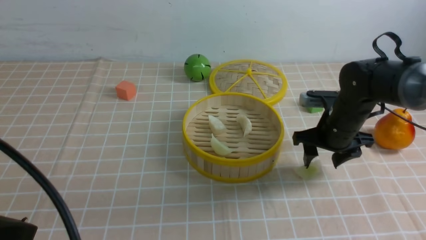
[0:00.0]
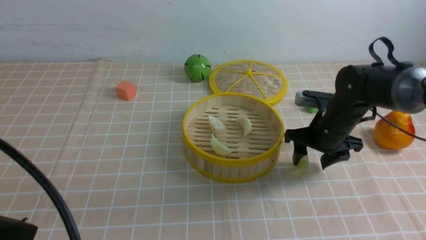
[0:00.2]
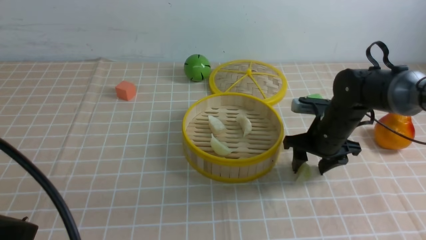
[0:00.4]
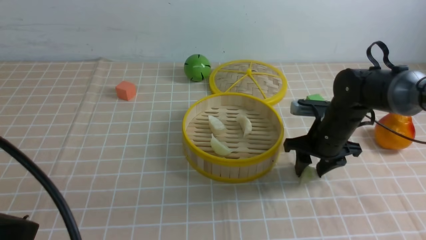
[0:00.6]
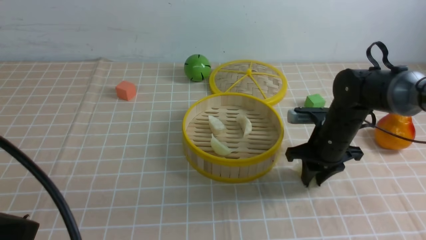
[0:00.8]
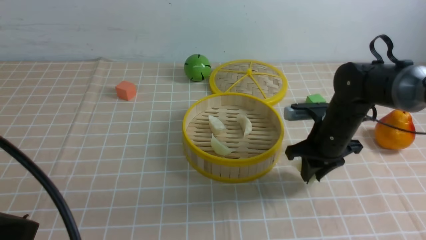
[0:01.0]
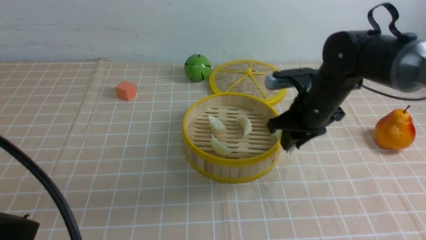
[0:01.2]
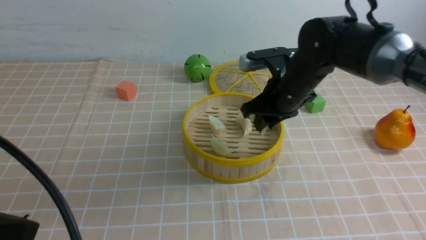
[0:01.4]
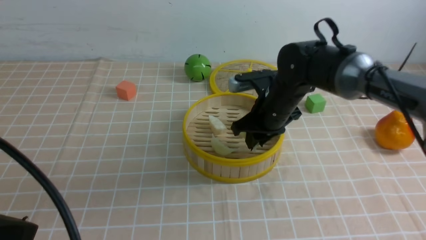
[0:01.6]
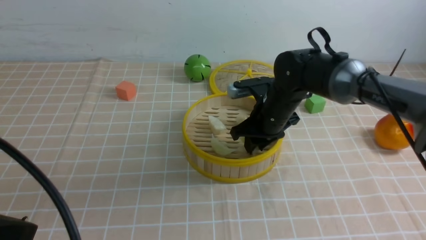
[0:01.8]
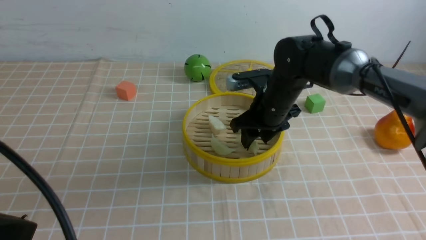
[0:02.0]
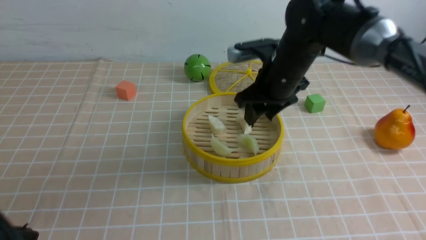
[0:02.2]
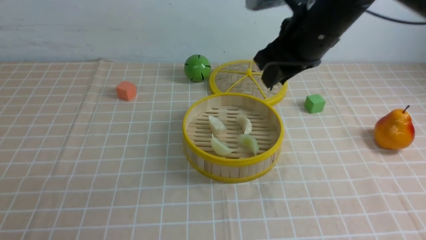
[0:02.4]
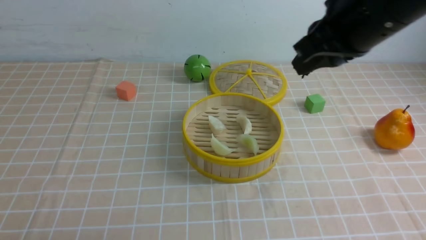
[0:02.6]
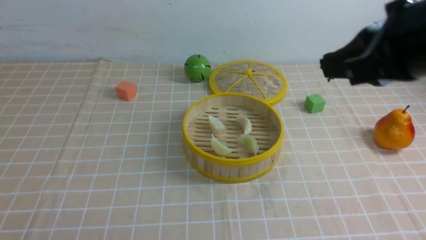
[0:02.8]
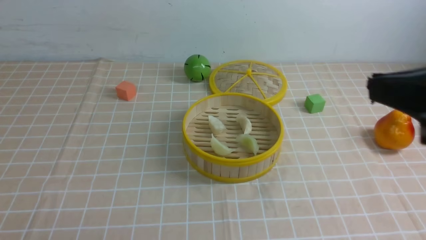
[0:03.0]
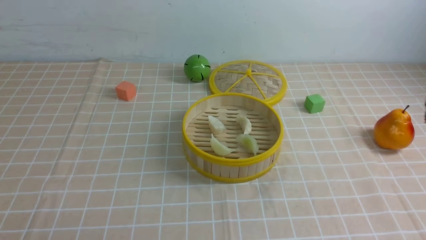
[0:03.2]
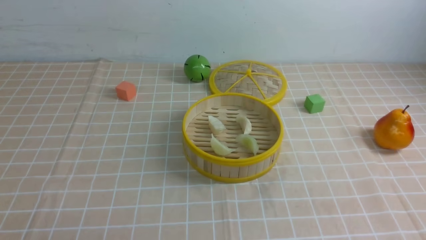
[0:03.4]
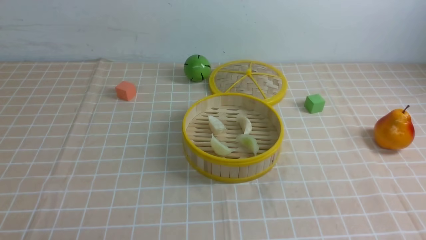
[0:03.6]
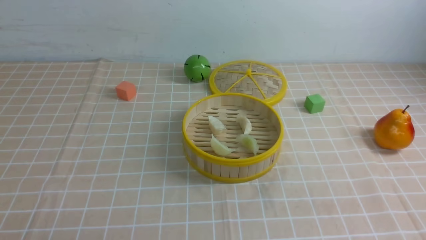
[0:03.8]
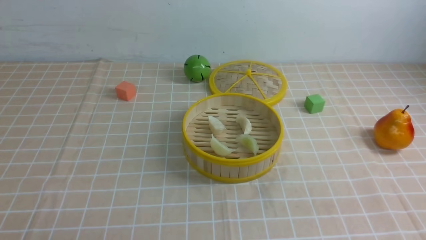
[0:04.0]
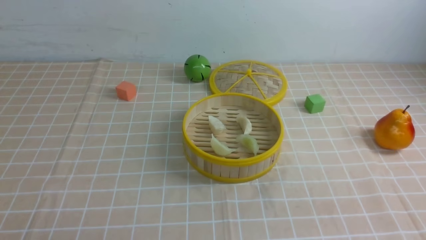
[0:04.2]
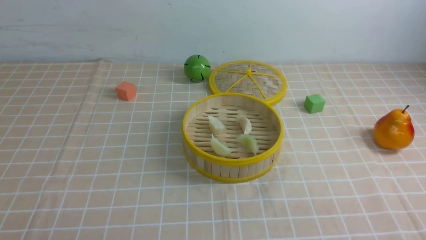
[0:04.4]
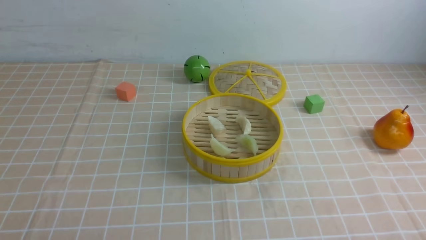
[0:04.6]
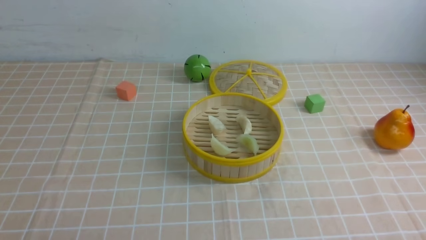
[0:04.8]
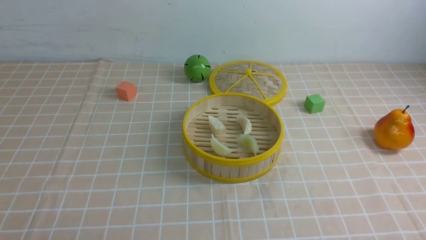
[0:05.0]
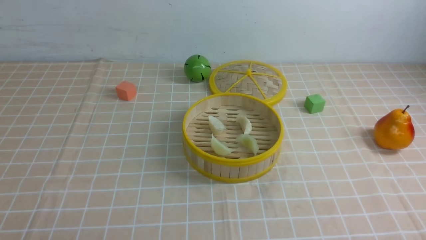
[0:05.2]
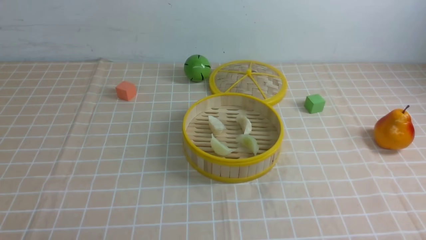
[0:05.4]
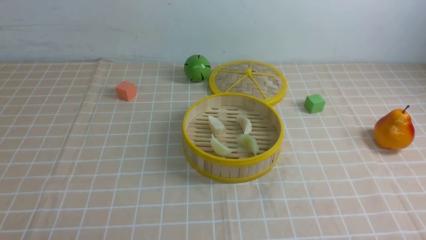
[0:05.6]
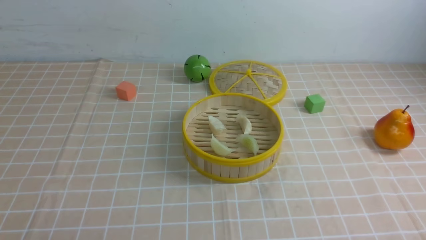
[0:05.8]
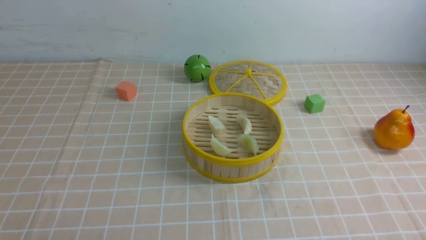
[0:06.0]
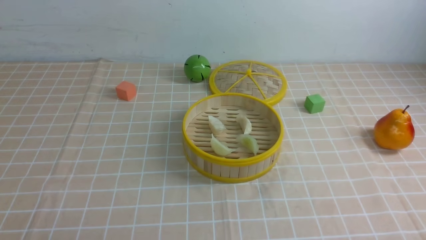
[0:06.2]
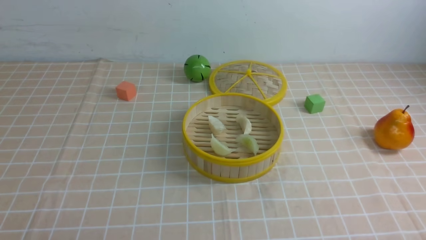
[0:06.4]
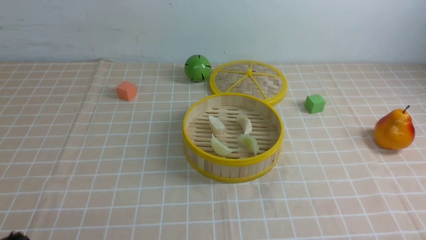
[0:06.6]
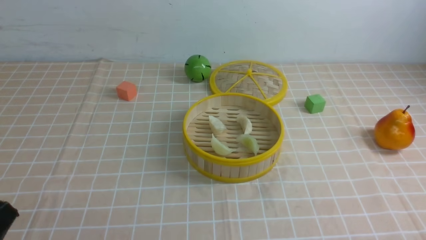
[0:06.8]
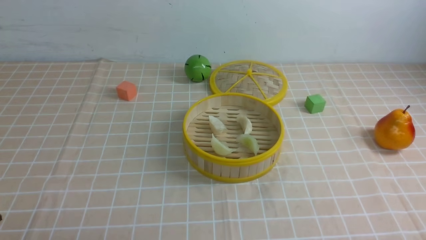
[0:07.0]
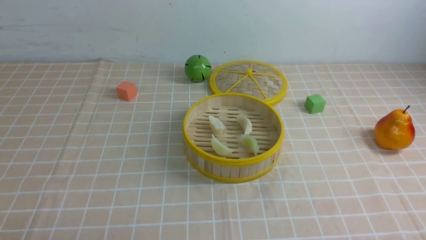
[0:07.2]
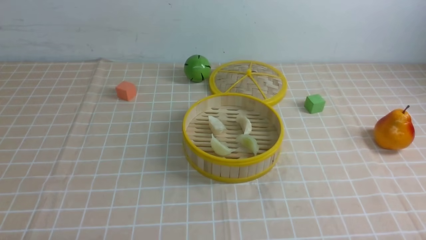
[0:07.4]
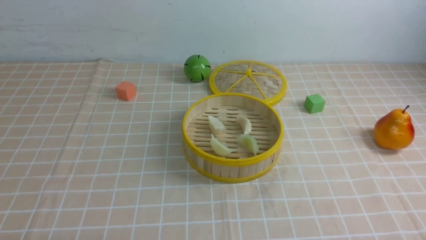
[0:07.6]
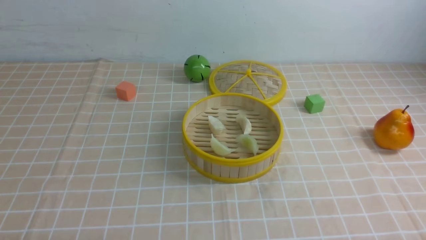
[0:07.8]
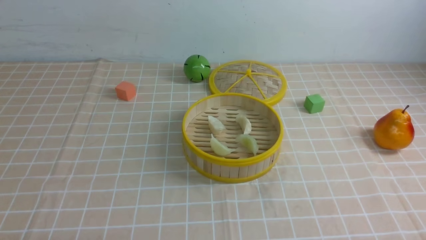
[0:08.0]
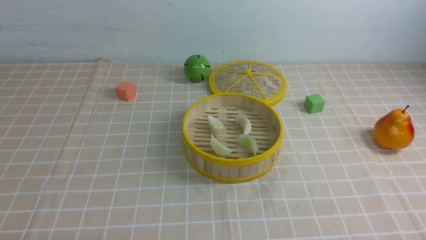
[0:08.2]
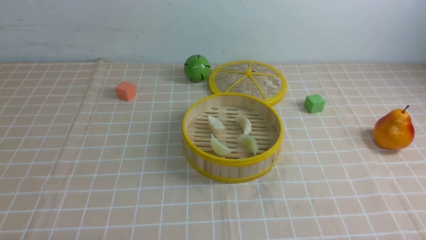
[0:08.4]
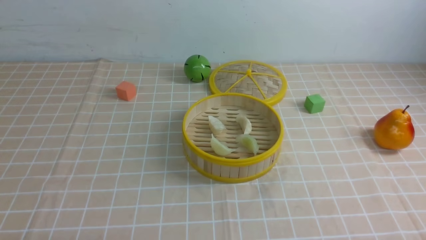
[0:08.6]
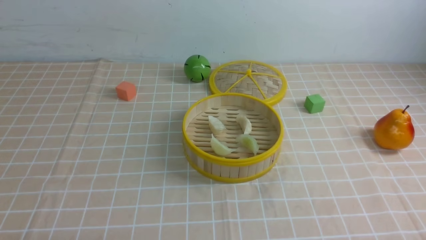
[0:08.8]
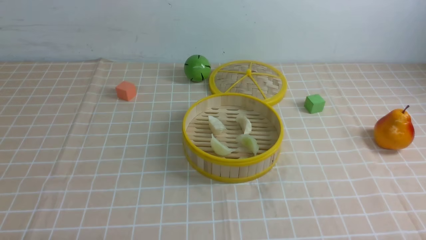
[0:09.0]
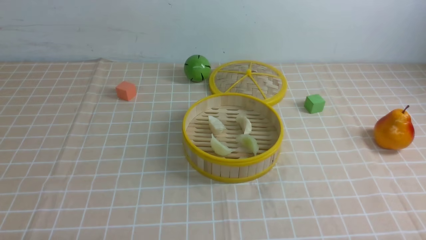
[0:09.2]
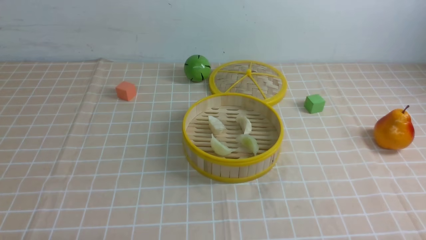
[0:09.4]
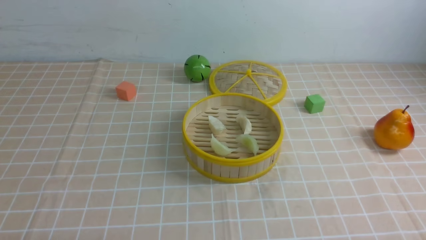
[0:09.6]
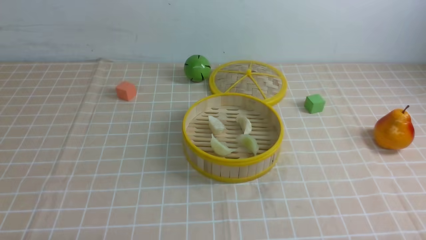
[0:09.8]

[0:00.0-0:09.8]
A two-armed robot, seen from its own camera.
Task of the whole recording: put the dumplings into the steamer on the table with the brown tablecloth.
Step, 0:01.0 to 0:02.0: use the right arm to put the dumpling into the steamer.
0:00.0 to 0:01.4: The right gripper goes about 10 cm to the left and upward, and closes.
0:01.4 to 0:02.8: The right gripper moves backward and upward, roughly 30 cm, and closes its fingers, while the left gripper travels downward and backward by roughly 10 cm.
0:02.8 to 0:04.2: The right gripper heads backward, downward and to the right, covering approximately 20 cm.
0:08.4 to 0:09.8: The two grippers keep their place.
